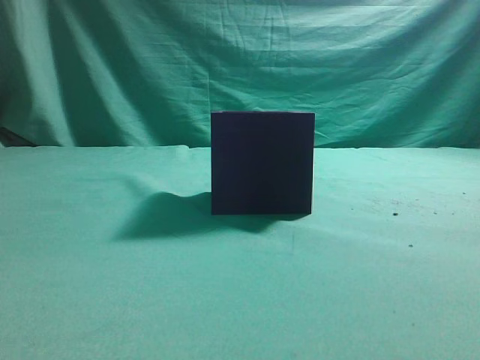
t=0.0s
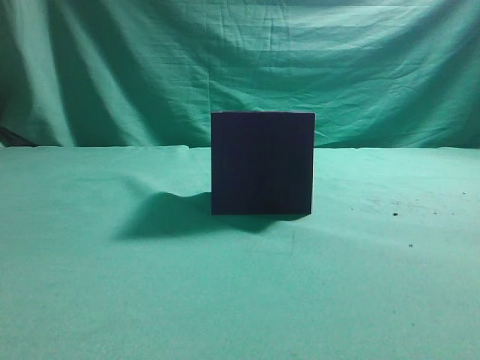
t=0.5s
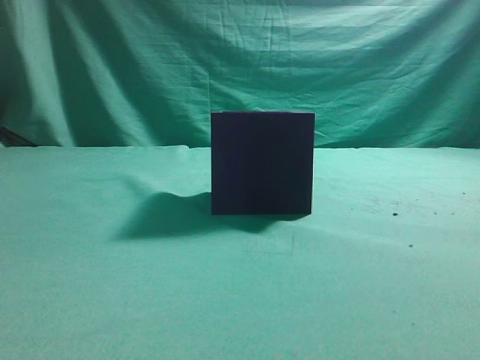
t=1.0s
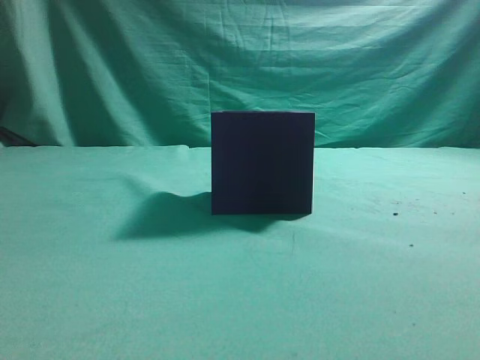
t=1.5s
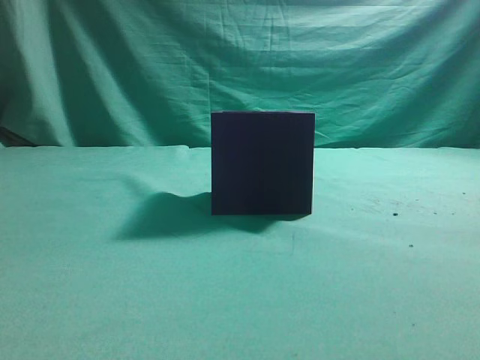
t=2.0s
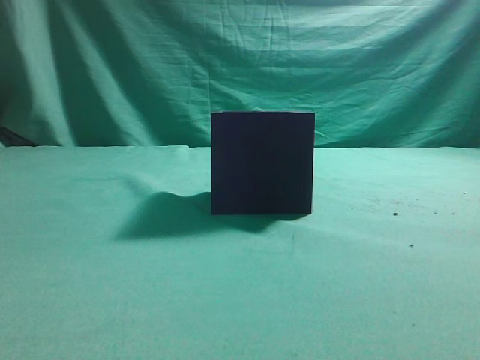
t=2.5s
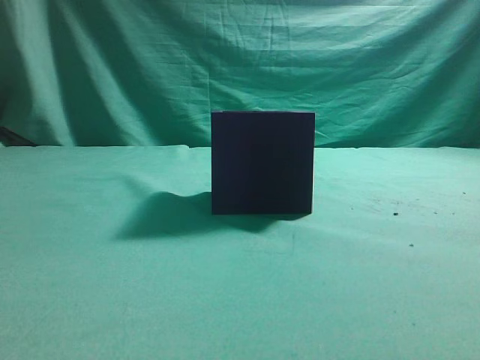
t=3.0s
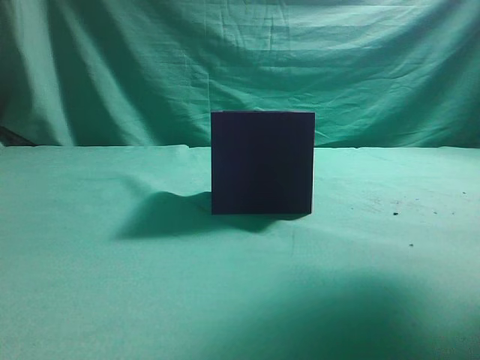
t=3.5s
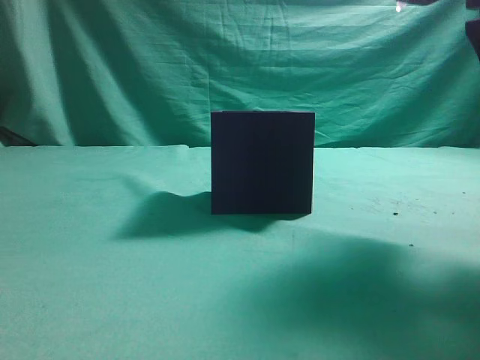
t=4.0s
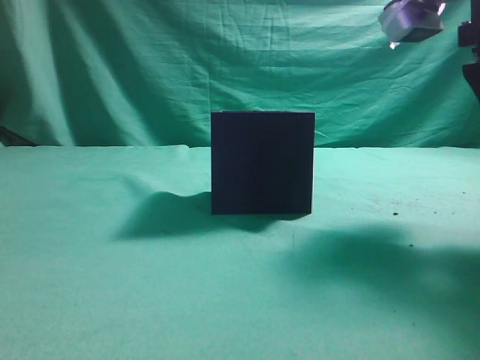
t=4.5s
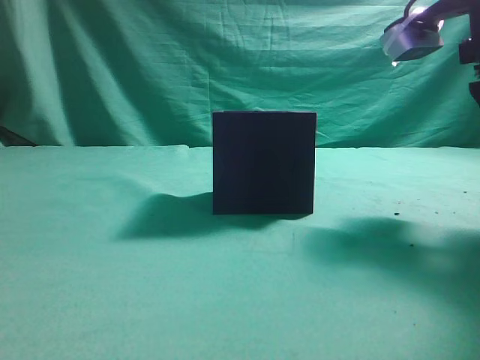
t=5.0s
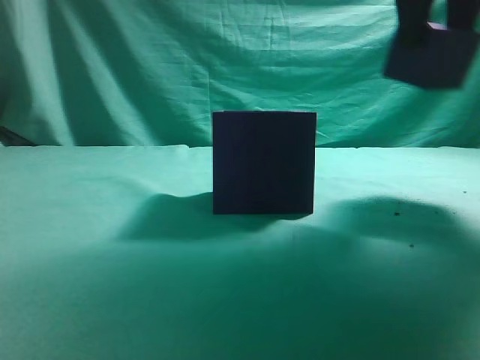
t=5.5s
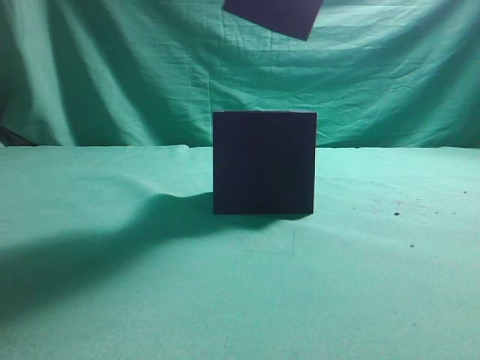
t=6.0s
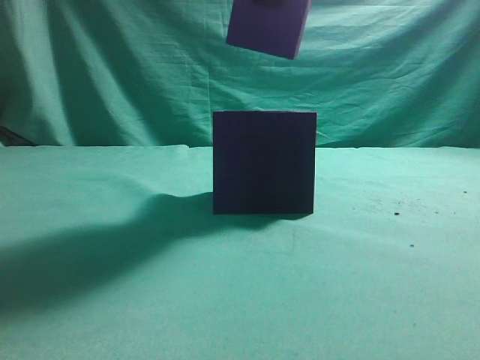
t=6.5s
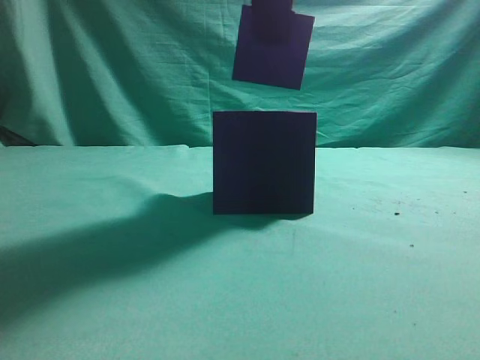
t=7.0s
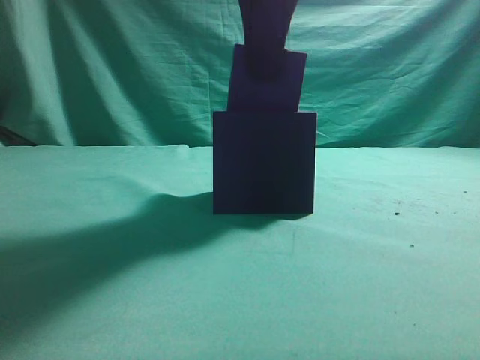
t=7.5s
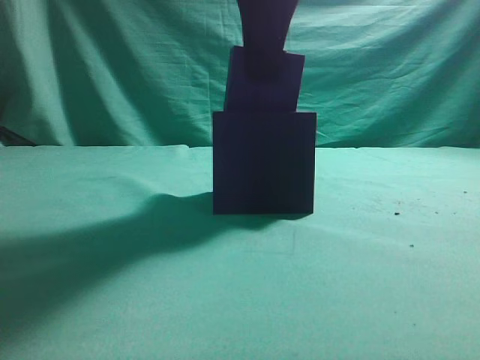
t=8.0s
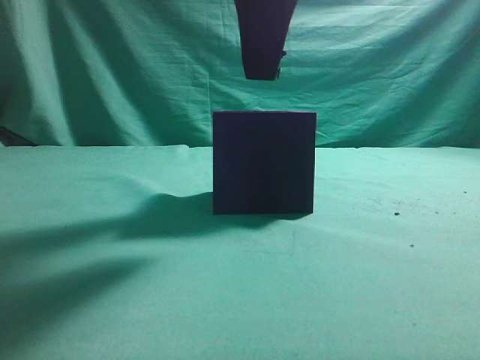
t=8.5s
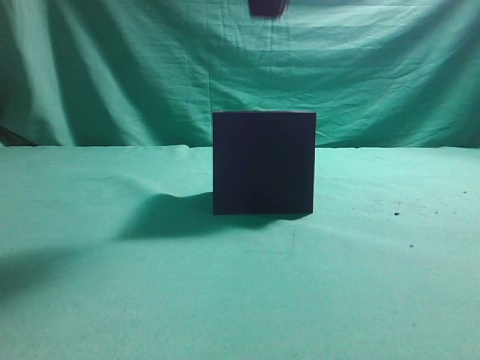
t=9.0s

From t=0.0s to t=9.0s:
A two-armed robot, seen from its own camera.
Task of the whole recording: pick up the cube block and place it into the cube groove.
Step, from t=0.0s to t=5.0s: Grasp the cube.
Step, from t=5.5s to t=8.5s: Place cube into the cube-shaped recess.
From t=2.0s to t=4.5s: The right gripper heads forward, covering roughly 20 cm, and opens its fingers.
From t=4.5s to t=7.0s: The right gripper goes roughly 20 cm to the left and upward.
From t=7.0s to t=9.0s: The grippers move only a little.
